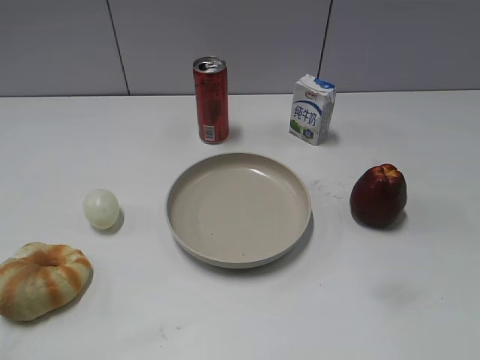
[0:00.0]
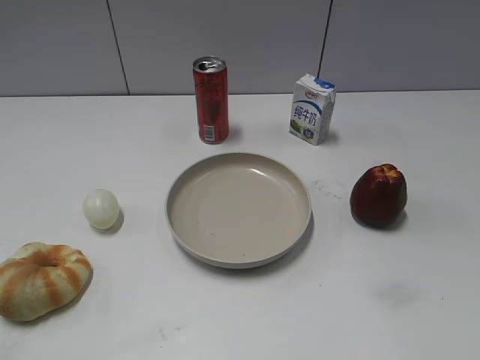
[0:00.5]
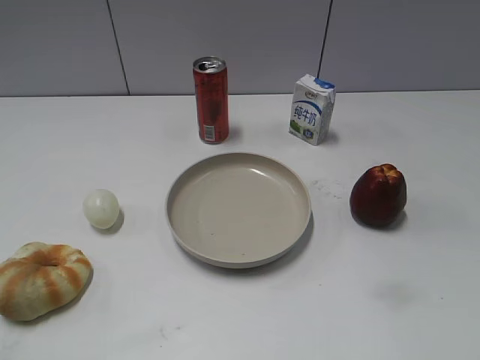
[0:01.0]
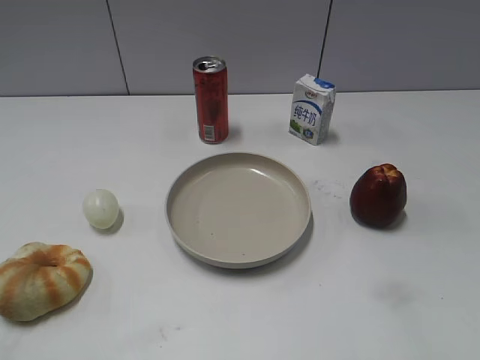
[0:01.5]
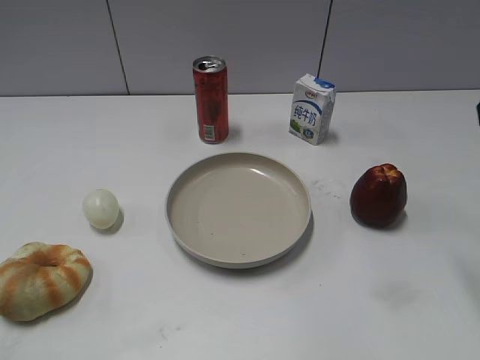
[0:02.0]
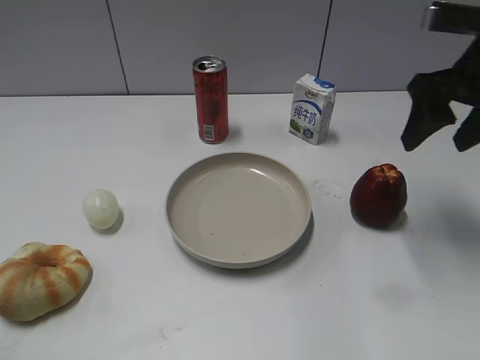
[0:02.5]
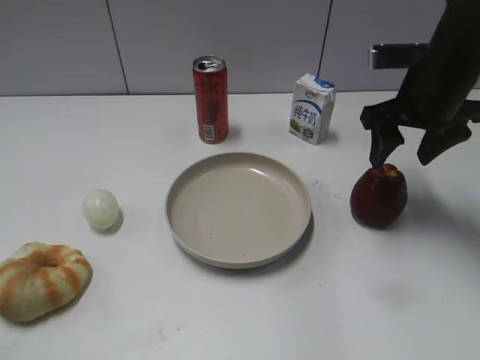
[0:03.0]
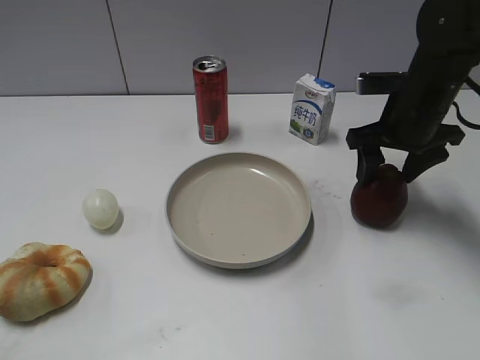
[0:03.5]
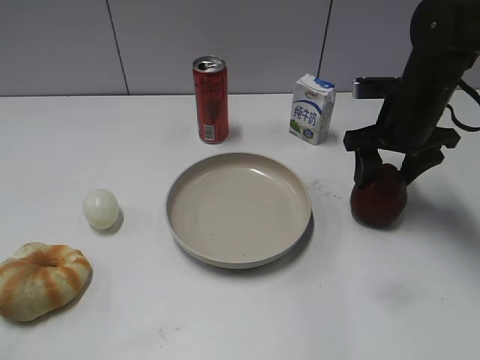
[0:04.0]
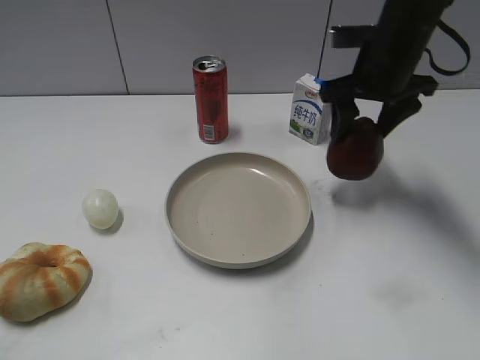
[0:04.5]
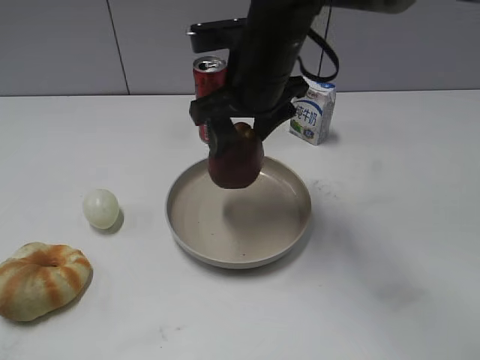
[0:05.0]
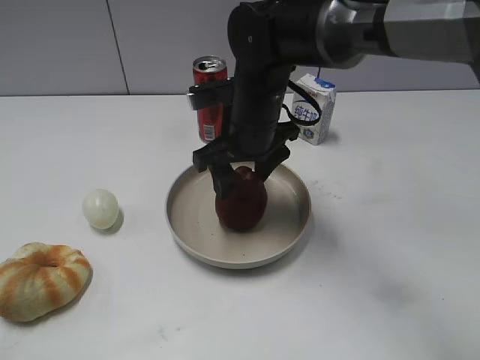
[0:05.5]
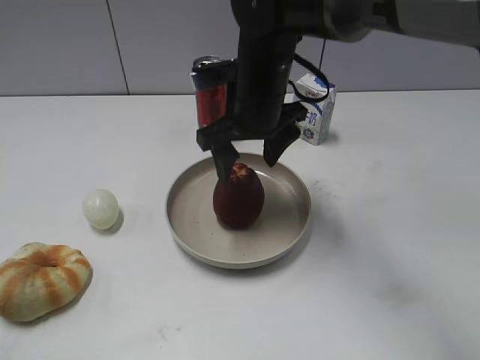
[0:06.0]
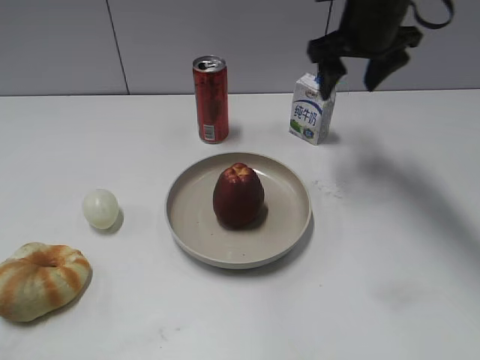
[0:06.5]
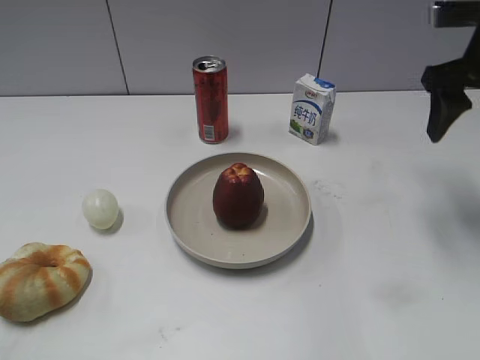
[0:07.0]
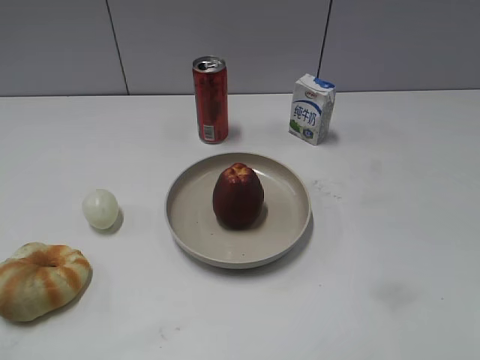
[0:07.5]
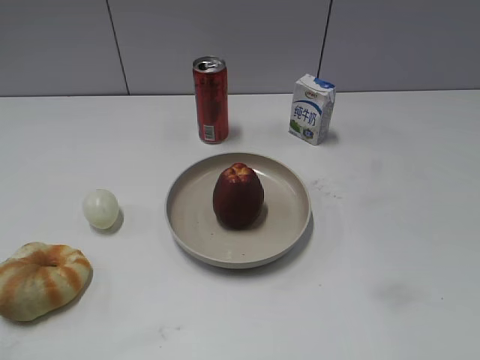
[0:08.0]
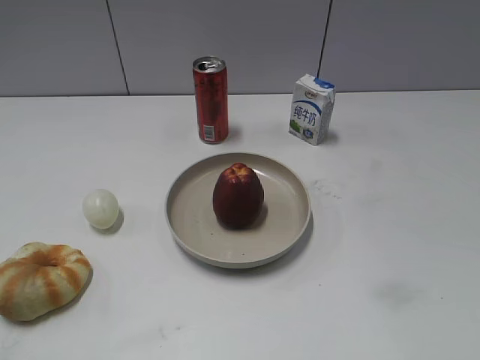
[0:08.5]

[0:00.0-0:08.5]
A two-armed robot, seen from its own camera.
Step, 0:02.0 to 0:04.0: Grasp the apple with right gripper.
Step, 0:04.5 to 0:06.0: Place the apple on the plate with right gripper.
0:02.0 to 0:04.0: The right gripper shifts approximately 25 cm downward and forward.
0:04.0 to 0:06.5: The right gripper moves upward and forward, roughly 10 cm, moves some 20 cm to the left and comes back, and opens up.
0:06.5 to 0:08.5: The right gripper is displaced backward by about 40 cm.

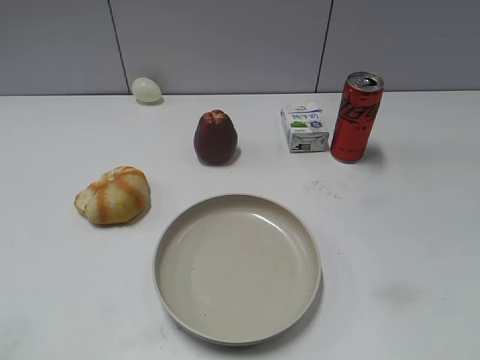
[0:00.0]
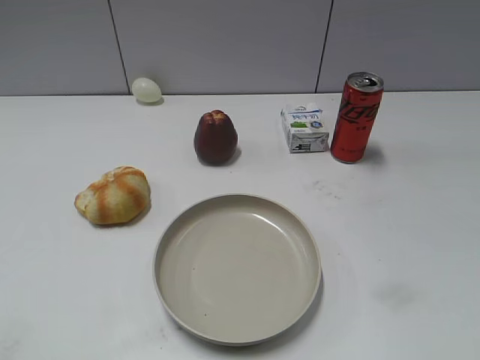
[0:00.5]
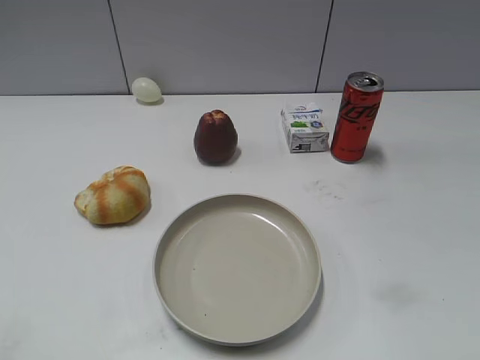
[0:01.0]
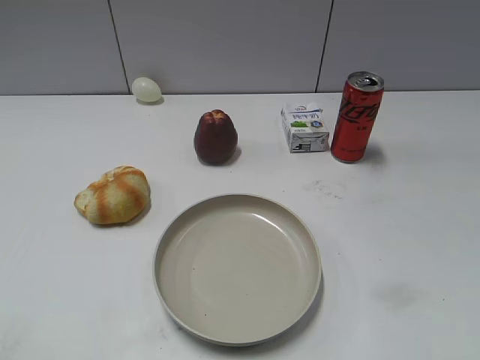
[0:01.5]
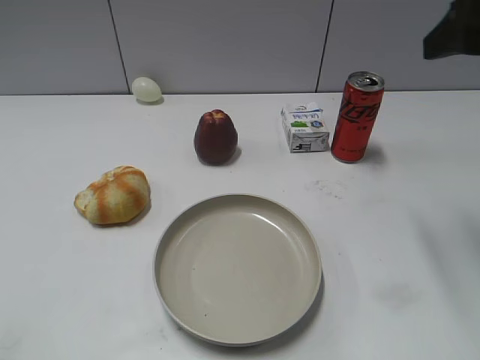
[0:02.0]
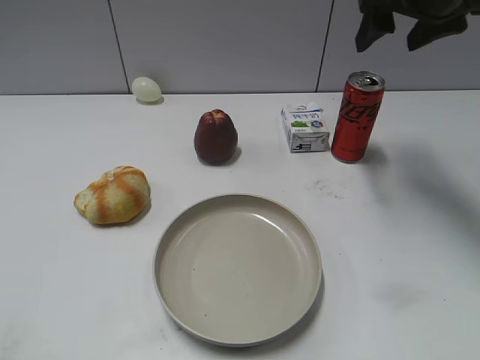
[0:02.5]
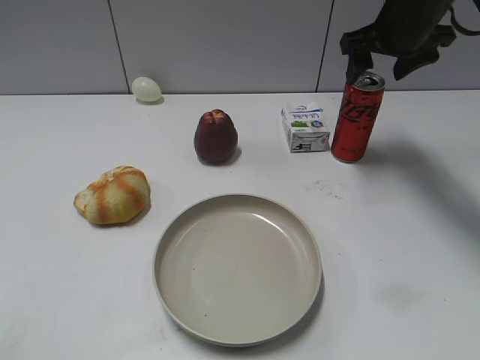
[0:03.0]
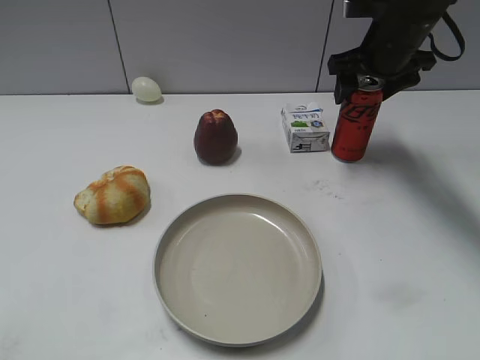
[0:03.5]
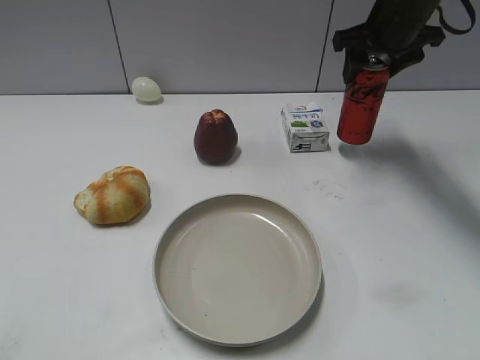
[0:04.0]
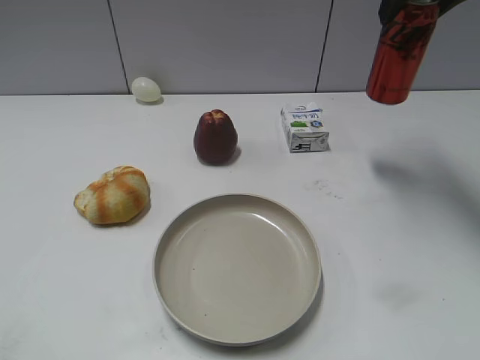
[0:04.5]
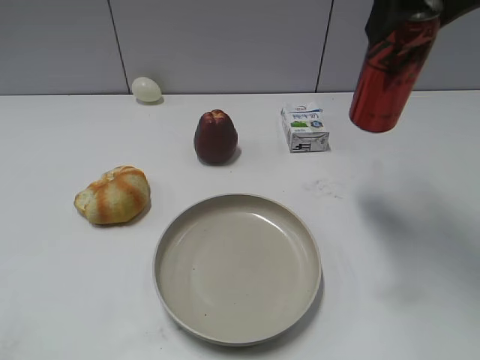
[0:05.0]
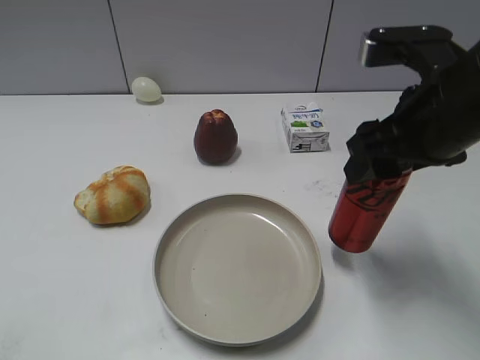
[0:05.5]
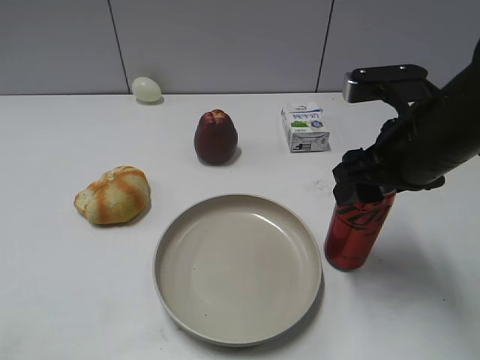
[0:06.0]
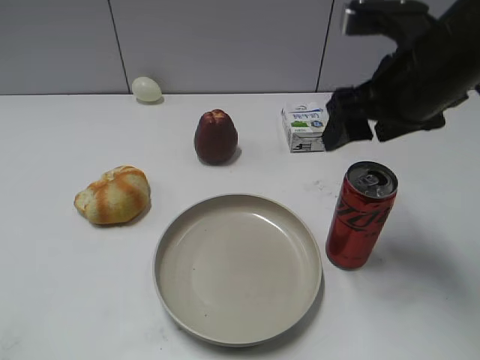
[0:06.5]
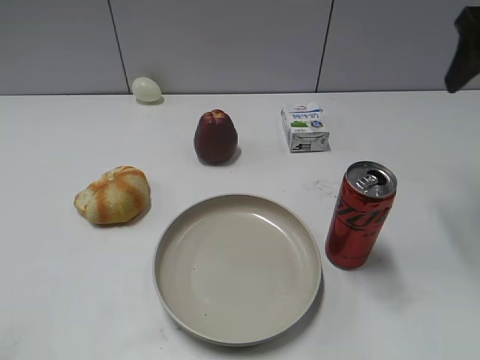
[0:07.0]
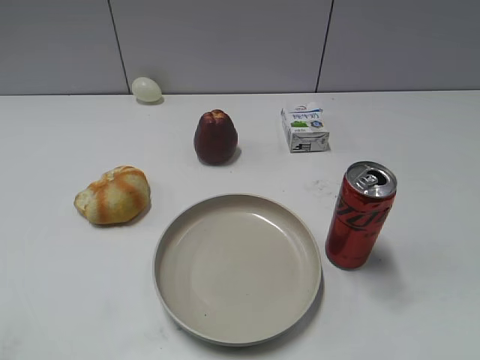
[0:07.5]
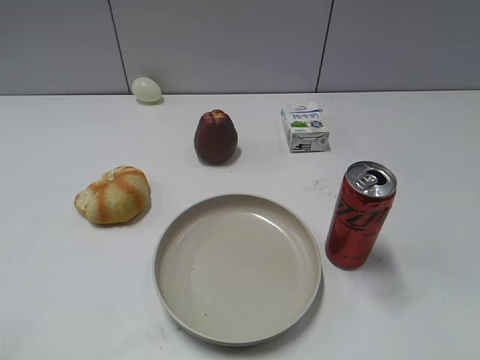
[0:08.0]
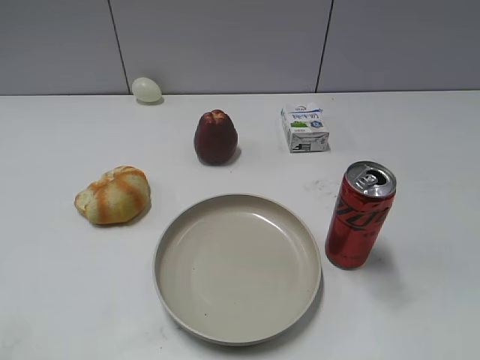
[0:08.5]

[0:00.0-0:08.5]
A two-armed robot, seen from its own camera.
Step, 0:01.0 to 0:03.5: Grasp the cola with right gripper.
Step, 0:04.0 to 0:06.0: Place the cola on the table with right gripper.
0:02.0 to 0:04.0: The right gripper is displaced forward and downward by approximately 20 cm, and closes its fingers.
0:04.0 to 0:06.5: The right gripper goes roughly 20 cm backward, and opens up.
0:06.5 to 0:08.5: The right gripper heads backward and to the right, covering about 30 cm.
